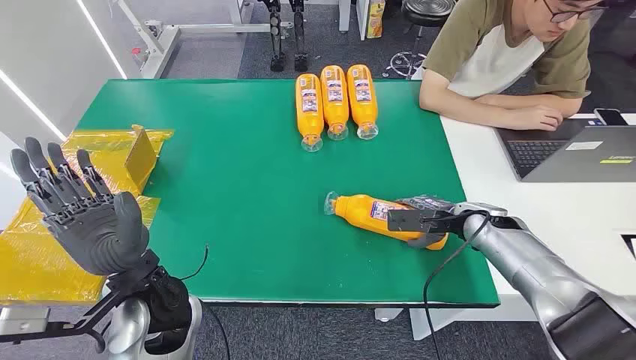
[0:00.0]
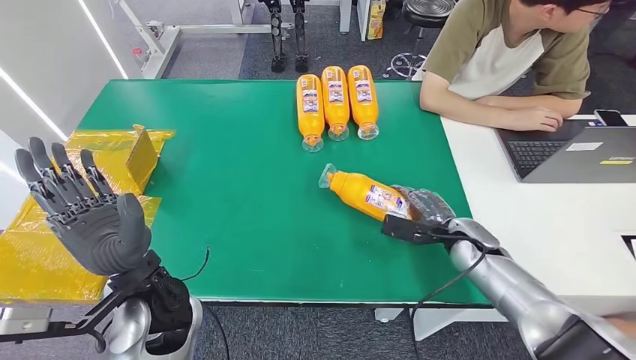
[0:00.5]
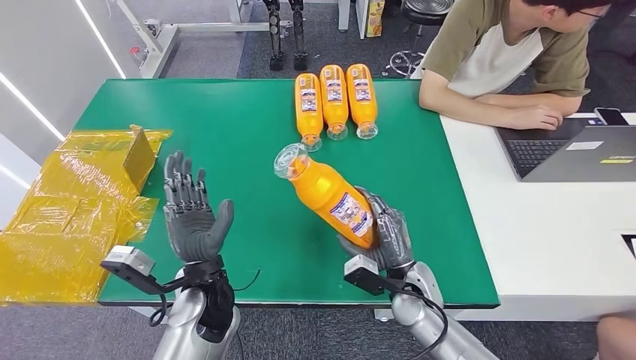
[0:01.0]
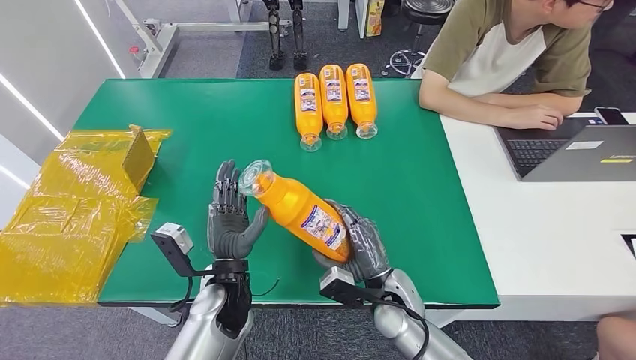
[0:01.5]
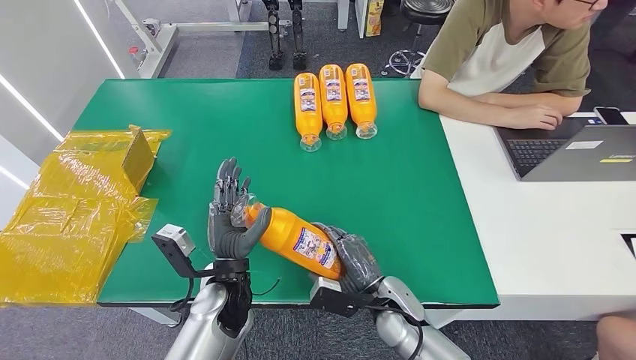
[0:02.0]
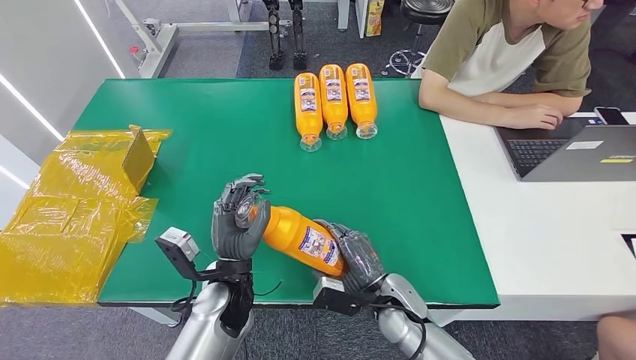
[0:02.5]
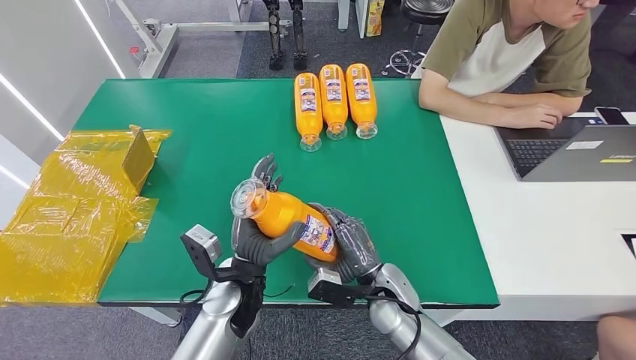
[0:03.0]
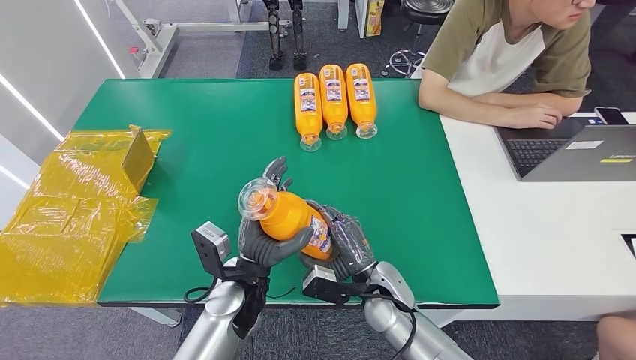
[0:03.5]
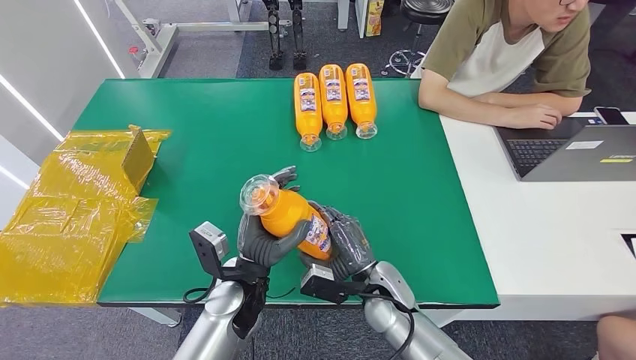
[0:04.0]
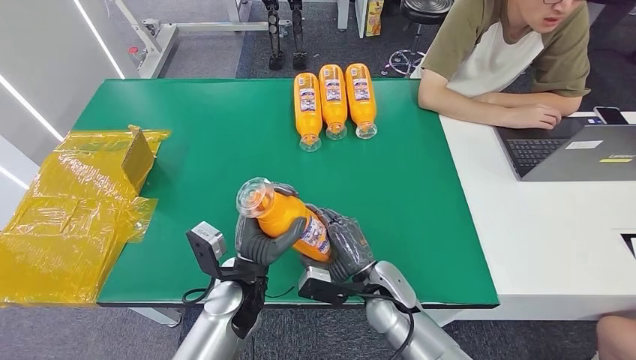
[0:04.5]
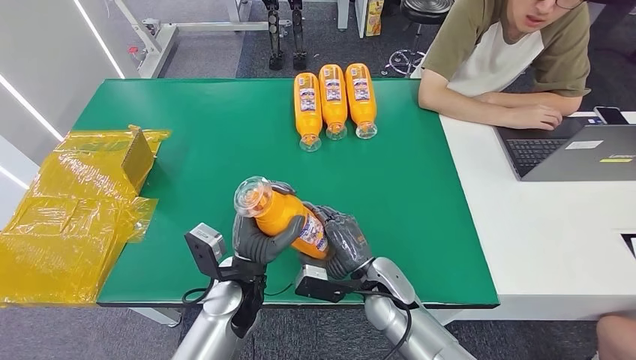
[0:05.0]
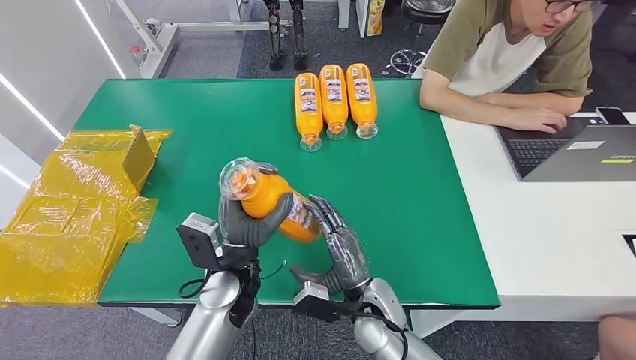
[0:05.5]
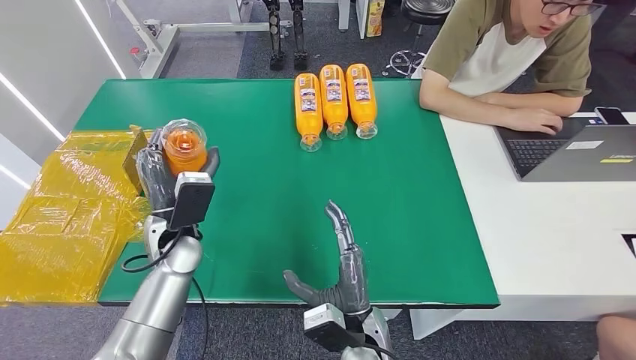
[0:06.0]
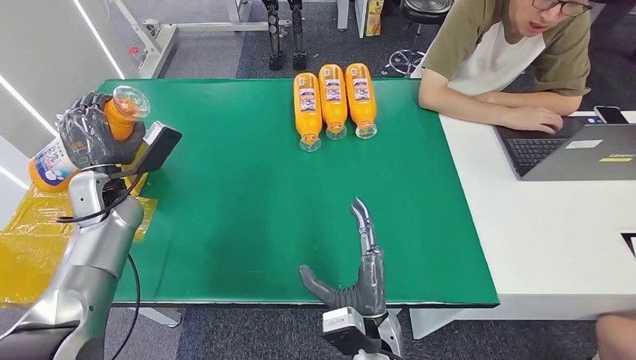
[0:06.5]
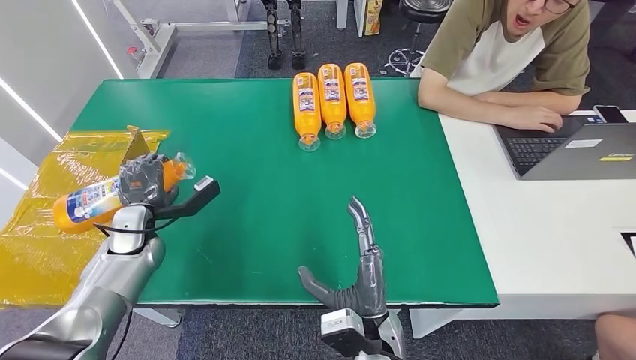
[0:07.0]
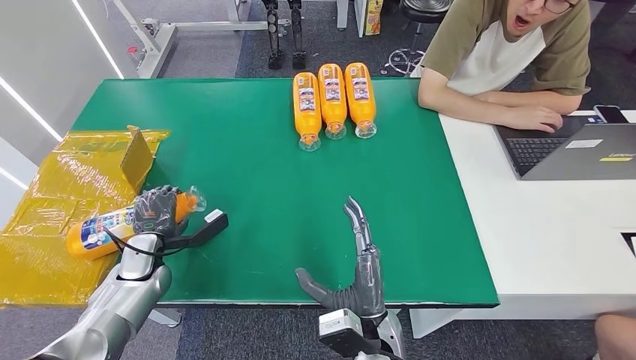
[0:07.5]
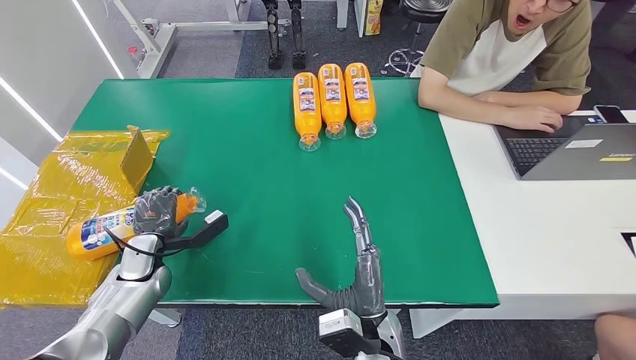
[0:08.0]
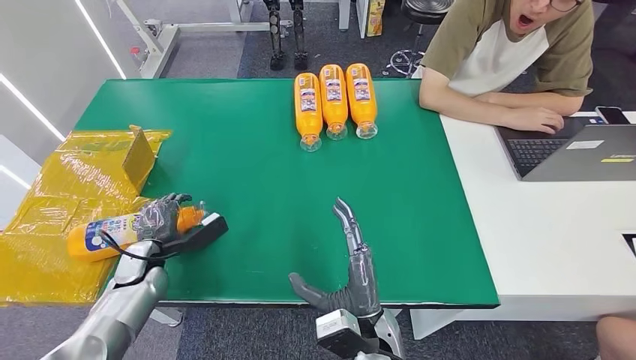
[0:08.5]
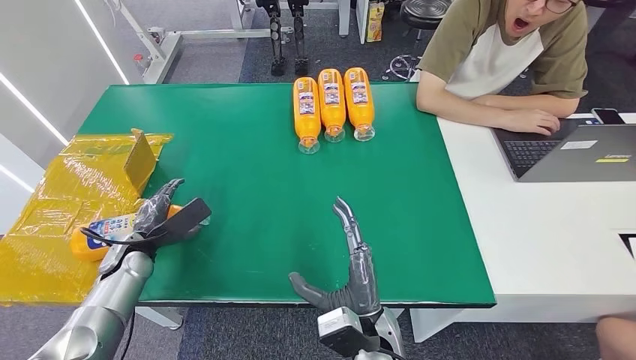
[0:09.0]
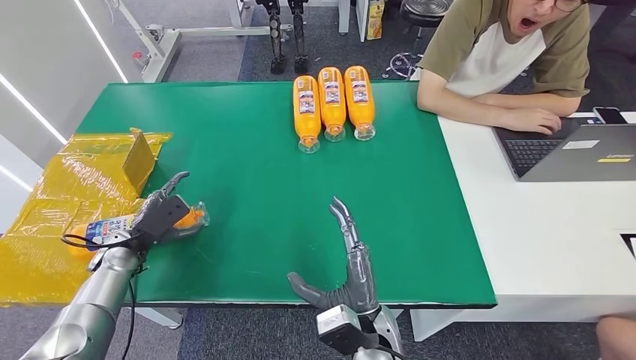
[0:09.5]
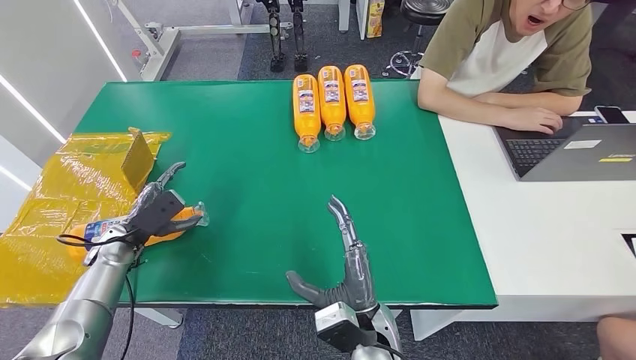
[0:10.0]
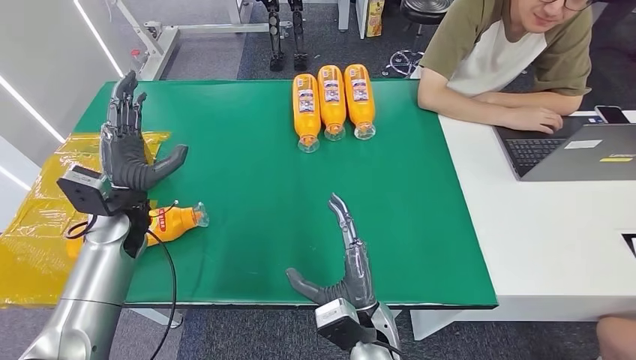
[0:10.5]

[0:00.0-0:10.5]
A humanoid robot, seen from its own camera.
Step, 0:00.0 to 0:02.0: Pick up the bottle from the table.
Step, 0:02.5 to 0:10.0: Turn the bottle to the front side.
0:02.0 to 0:04.0: There are only small adjustments of the hands.
0:04.0 to 0:06.5: The left hand heads to the left and forward, covering roughly 30 cm, while the right hand moves backward, some 10 cm.
0:06.5 to 0:08.5: The left hand goes roughly 15 cm downward and backward.
0:08.5 to 0:10.5: The left hand heads upward and forward, covering about 15 cm.
